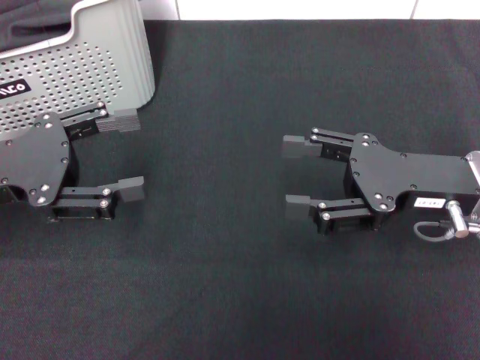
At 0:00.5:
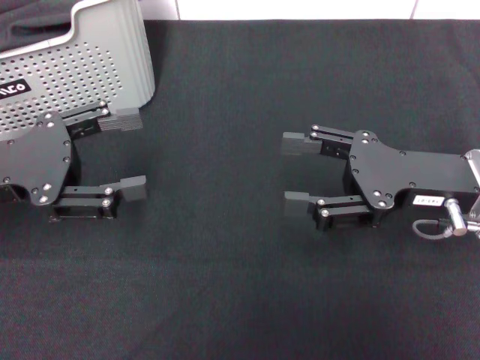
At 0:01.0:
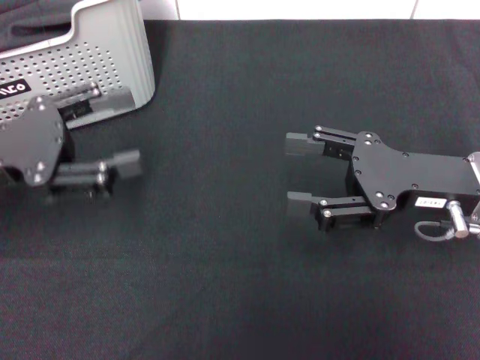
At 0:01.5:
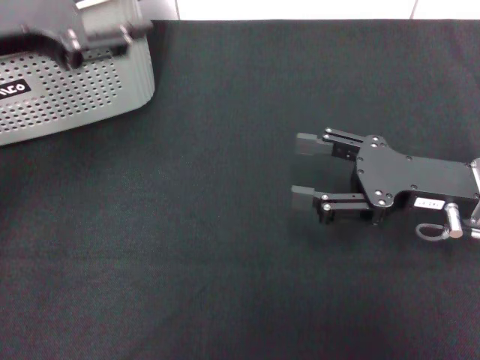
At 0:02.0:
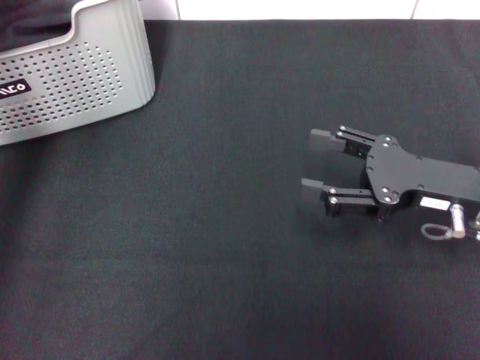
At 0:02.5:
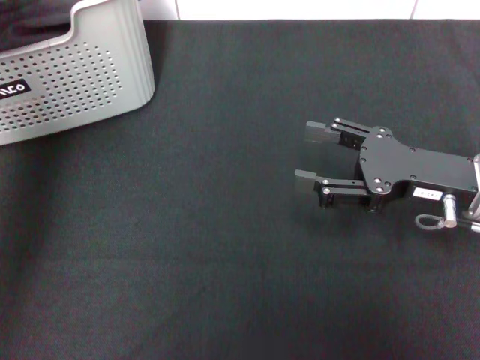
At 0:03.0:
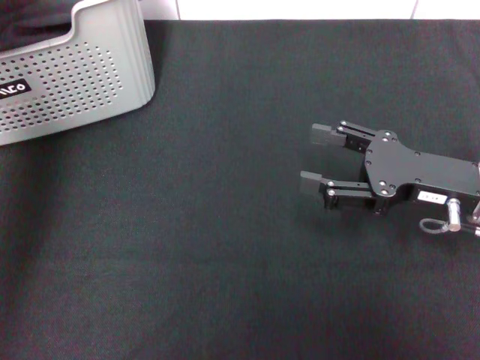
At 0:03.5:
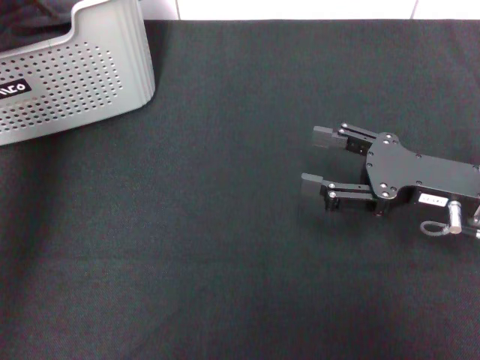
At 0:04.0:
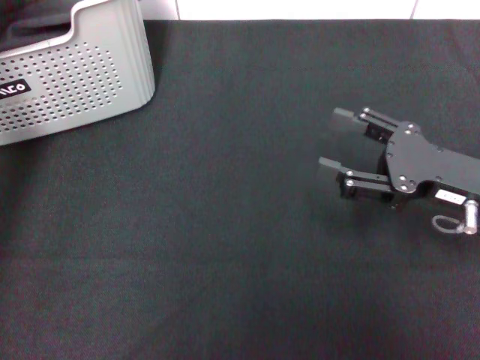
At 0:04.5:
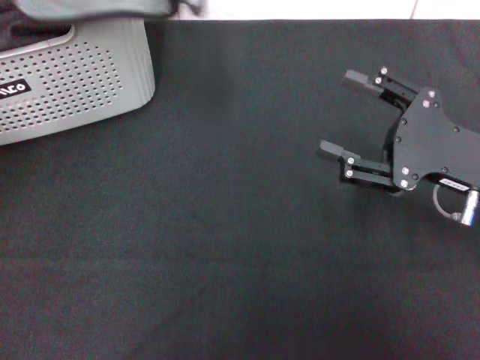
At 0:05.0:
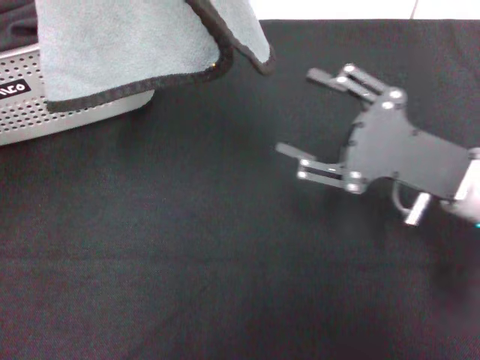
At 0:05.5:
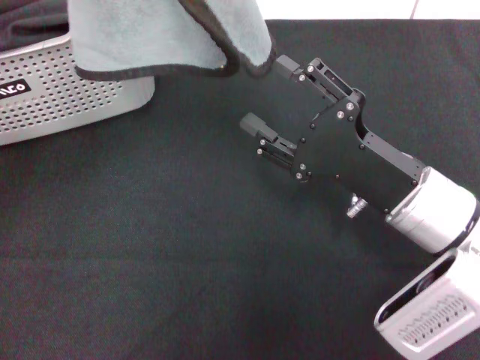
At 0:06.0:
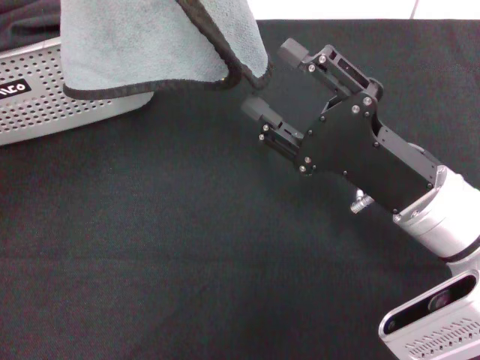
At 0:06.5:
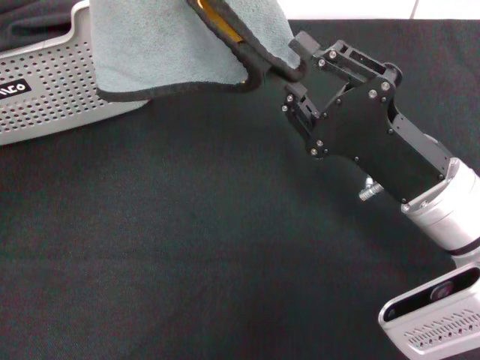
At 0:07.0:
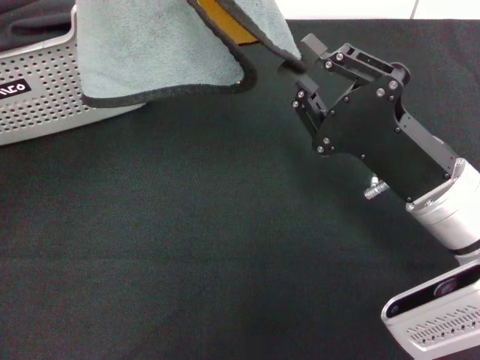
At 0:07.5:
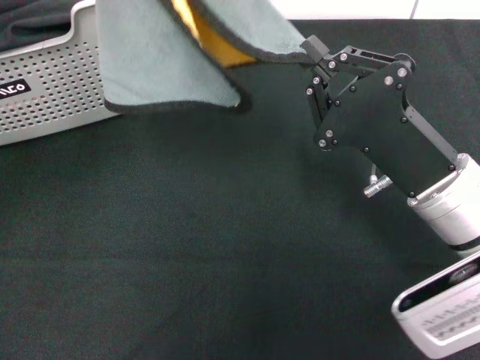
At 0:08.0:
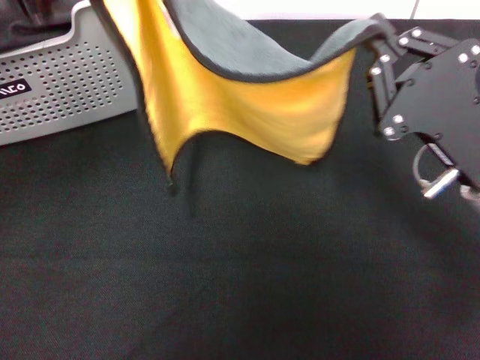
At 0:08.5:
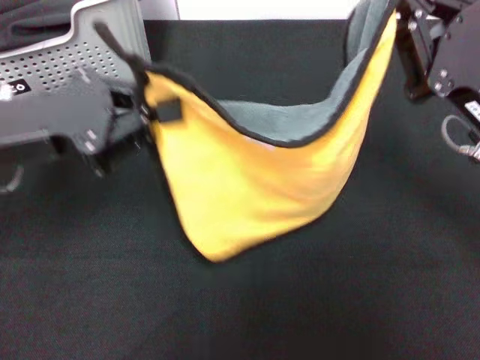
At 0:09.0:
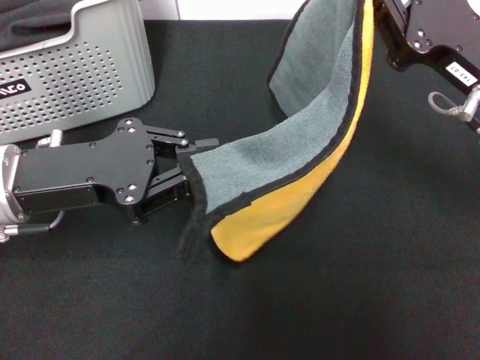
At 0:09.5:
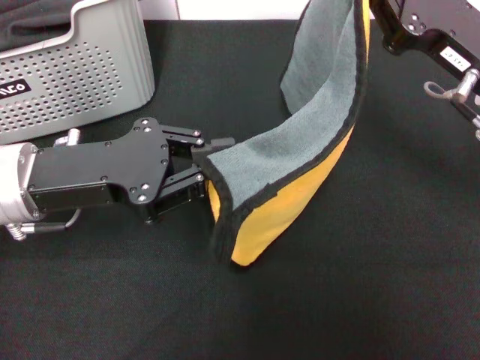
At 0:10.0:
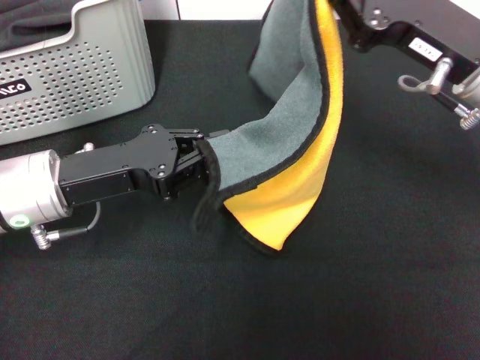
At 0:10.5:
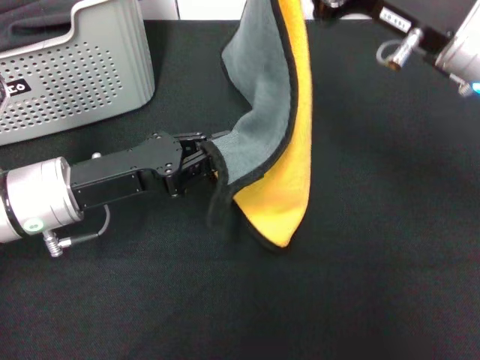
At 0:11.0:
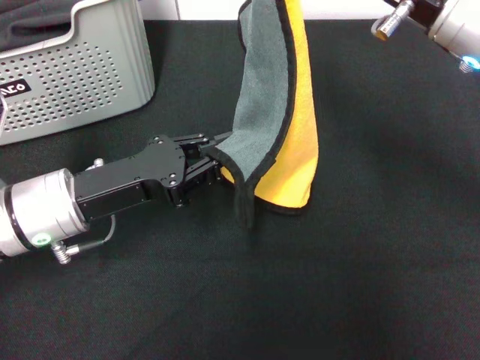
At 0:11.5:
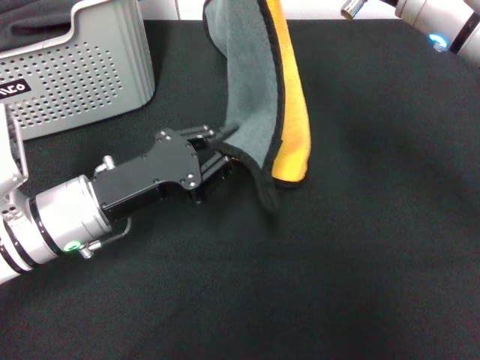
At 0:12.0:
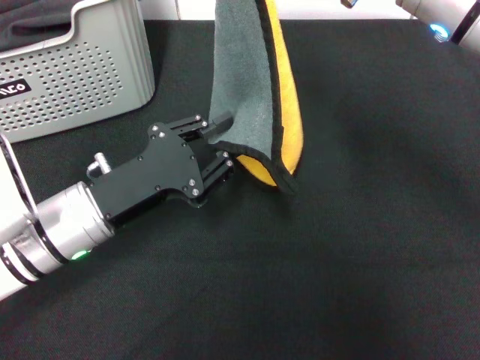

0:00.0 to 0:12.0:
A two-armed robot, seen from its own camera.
Task of the whole recording: pick up the towel from the storage box and lay it flat on the black tablecloth.
Step, 0:00.0 to 0:03.5: Pick up a towel with the left gripper.
Step, 0:04.0 to 0:07.5: Spread the towel flat with the left gripper.
0:00.0 to 0:02.0: The left gripper heads upward, covering some 15 cm.
0:02.0 to 0:04.0: The left gripper closes up.
0:04.0 to 0:06.0: The left gripper is displaced backward by approximately 5 cm. The right gripper travels to the left by approximately 10 cm.
0:06.0 to 0:08.0: The left gripper travels downward by roughly 10 cm. The right gripper closes up.
0:08.0 to 0:10.0: The right gripper moves forward and upward, about 10 cm. The left gripper travels downward by some 15 cm.
0:10.0 to 0:12.0: The left gripper travels downward by some 5 cm; the right gripper travels upward and to the left by roughly 10 cm.

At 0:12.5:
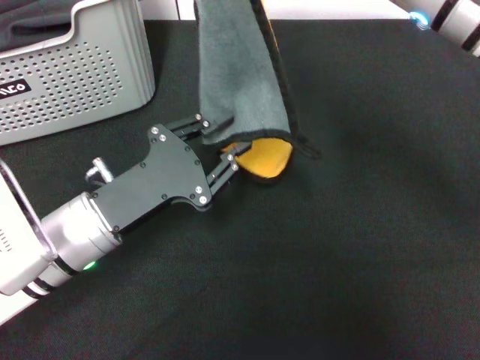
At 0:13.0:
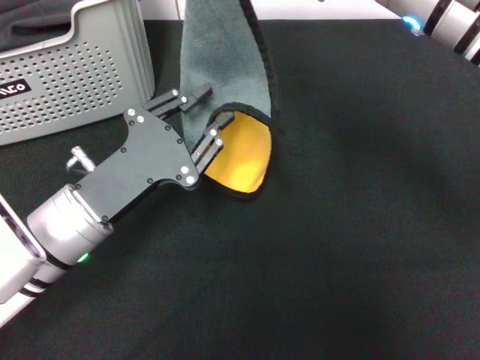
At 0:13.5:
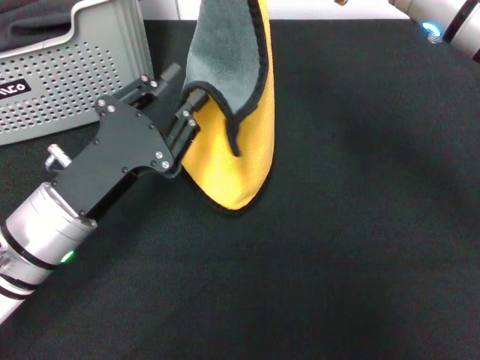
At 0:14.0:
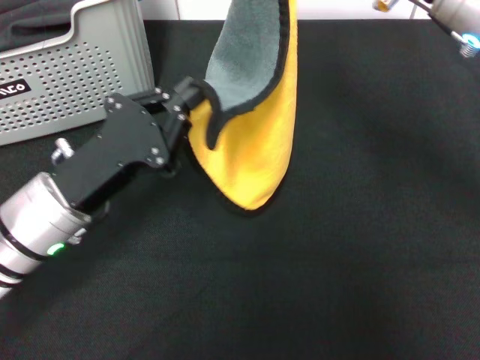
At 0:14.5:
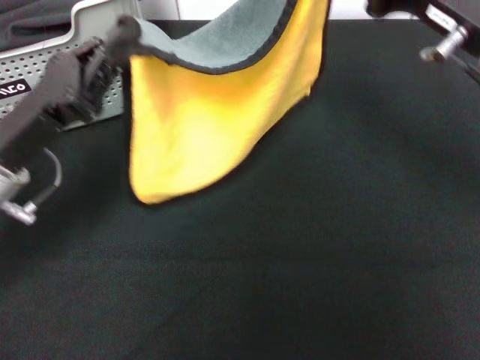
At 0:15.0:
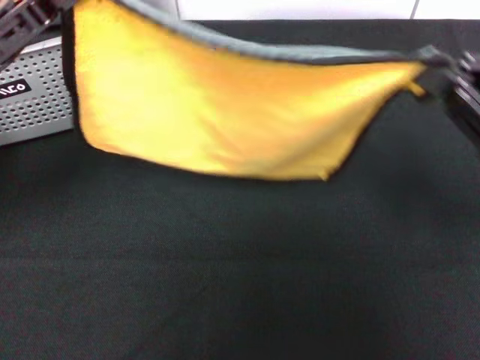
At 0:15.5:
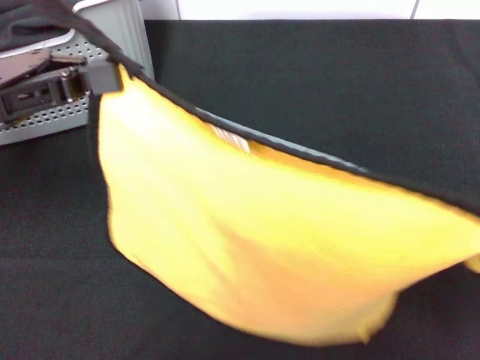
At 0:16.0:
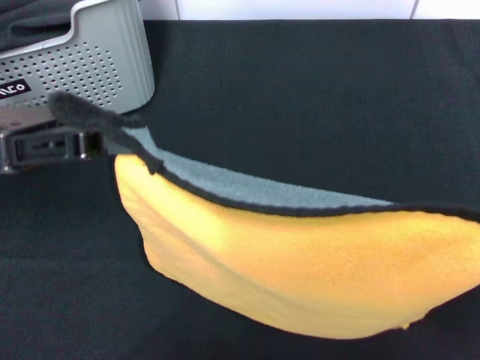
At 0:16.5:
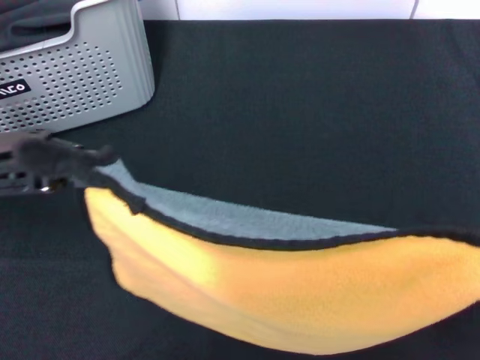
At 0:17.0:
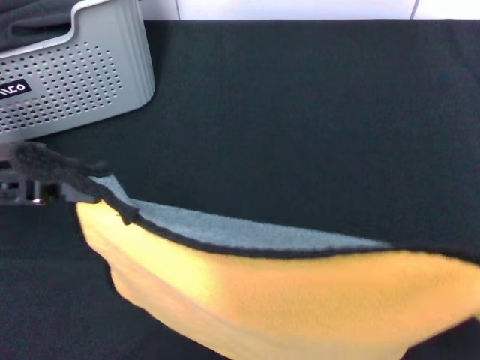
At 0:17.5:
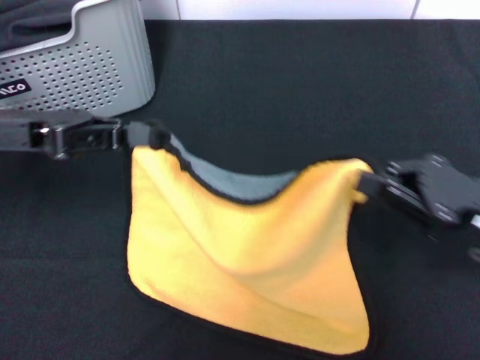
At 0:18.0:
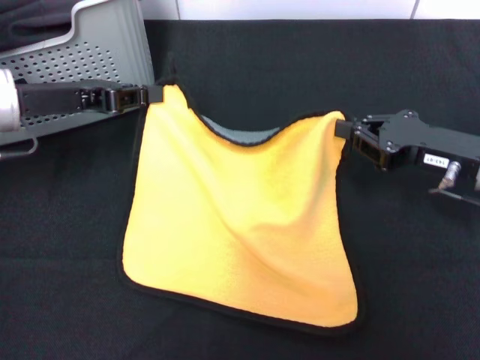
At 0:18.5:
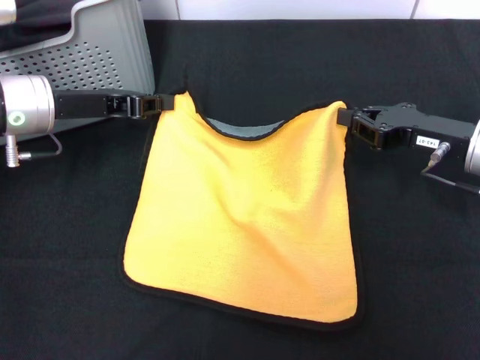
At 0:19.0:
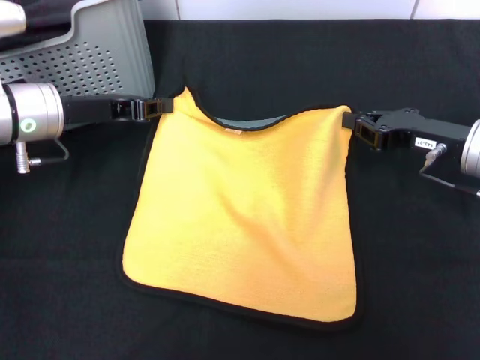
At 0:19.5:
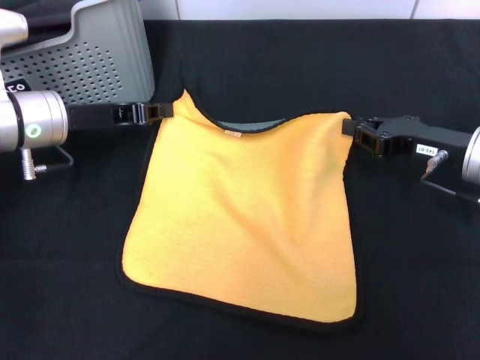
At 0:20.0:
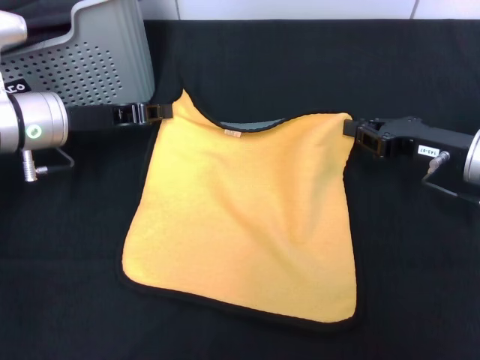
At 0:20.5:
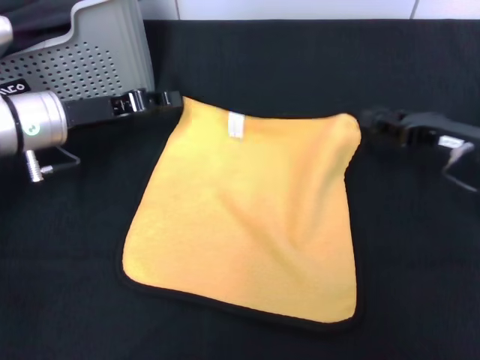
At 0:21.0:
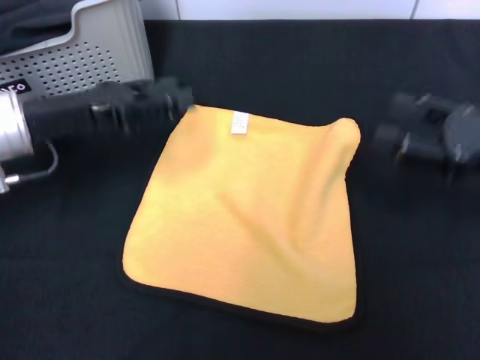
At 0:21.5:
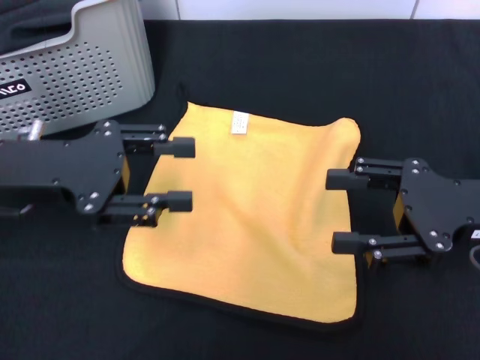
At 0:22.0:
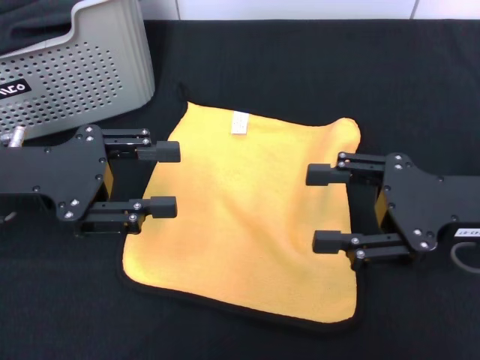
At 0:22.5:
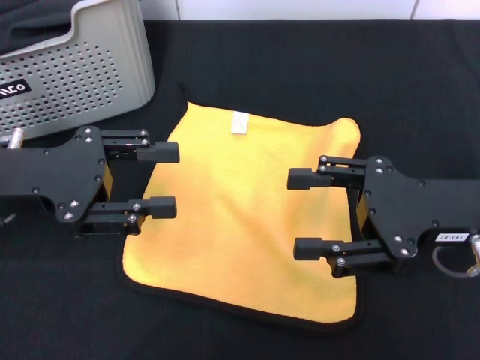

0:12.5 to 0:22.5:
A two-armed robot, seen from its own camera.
Task of the whole recording: pick up the towel from the storage box and lay it flat on the black tablecloth.
Step, 0:12.5 to 0:20.5: Spread the towel flat with the right gripper.
0:12.5 to 0:14.5: The left gripper is displaced to the left and upward by some 10 cm, and closes. Meanwhile the right gripper travels to the right and downward by about 10 cm.
0:14.5 to 0:16.5: The left gripper moves upward, approximately 10 cm, while the right gripper goes about 20 cm backward, to the right and downward.
0:16.5 to 0:18.5: The right gripper heads forward and to the left, covering about 20 cm; the left gripper shifts roughly 15 cm forward and downward.
0:18.5 to 0:20.5: The grippers make only small movements.
0:20.5 to 0:22.5: Both grippers travel together backward and upward, approximately 10 cm. The left gripper opens; the right gripper opens up.
